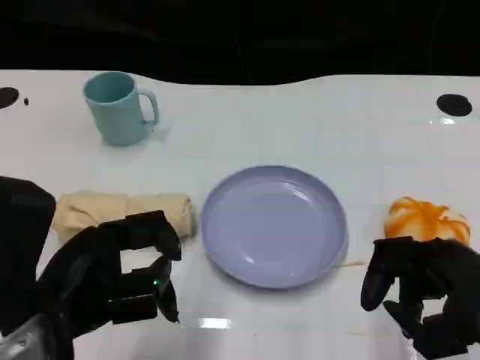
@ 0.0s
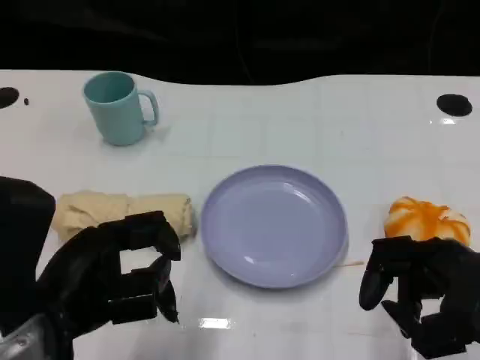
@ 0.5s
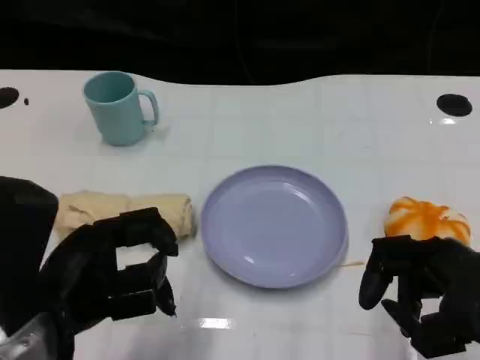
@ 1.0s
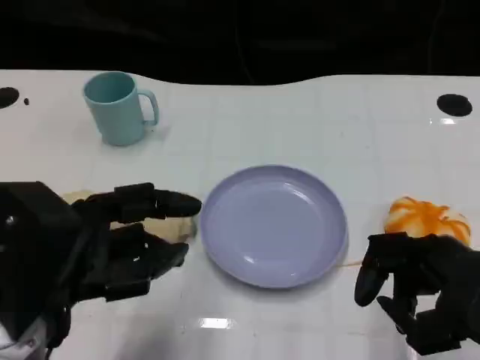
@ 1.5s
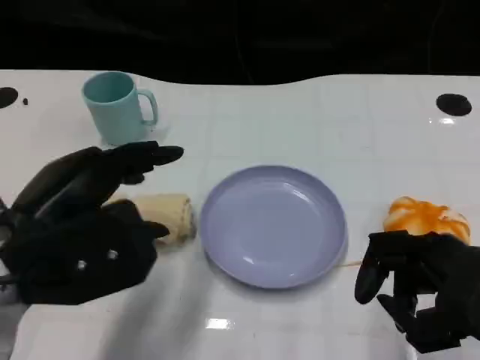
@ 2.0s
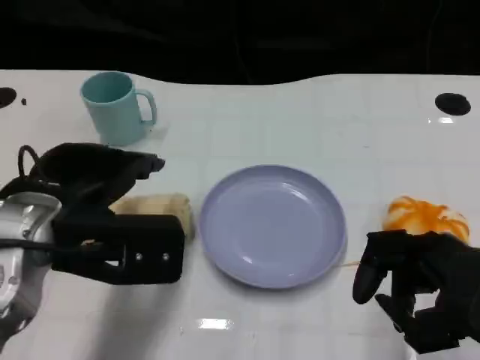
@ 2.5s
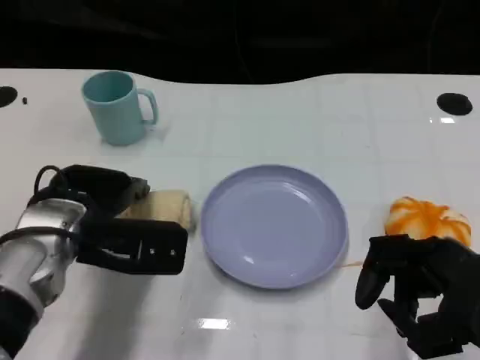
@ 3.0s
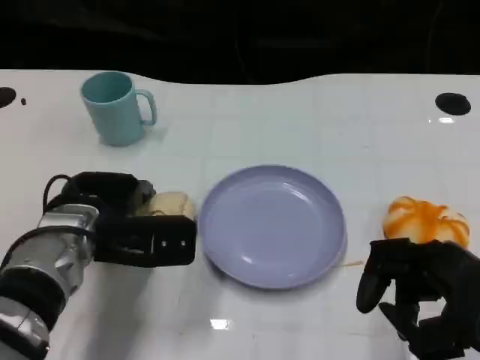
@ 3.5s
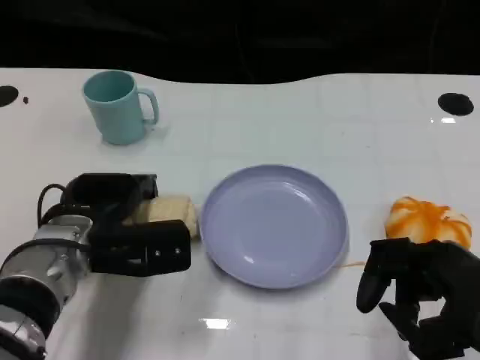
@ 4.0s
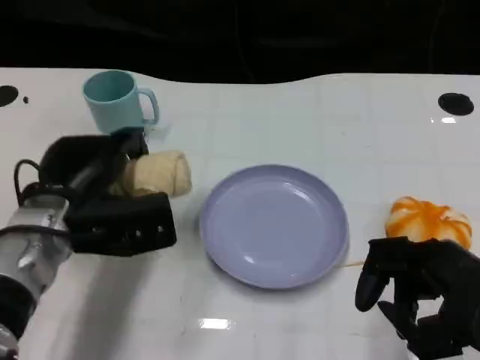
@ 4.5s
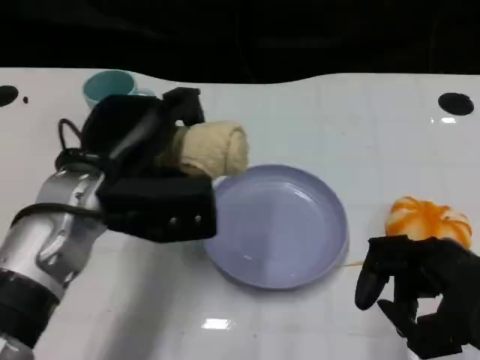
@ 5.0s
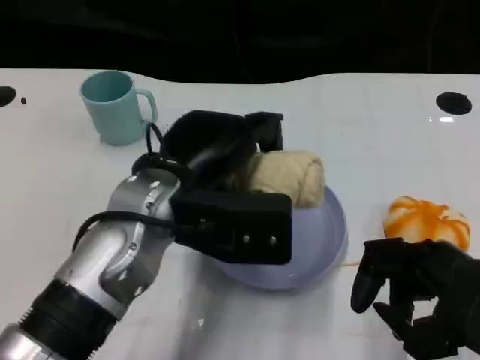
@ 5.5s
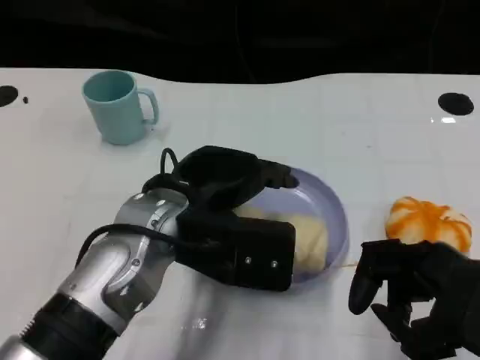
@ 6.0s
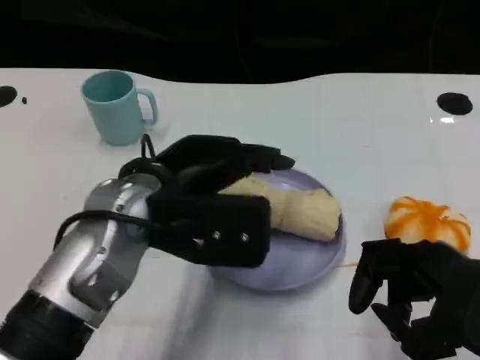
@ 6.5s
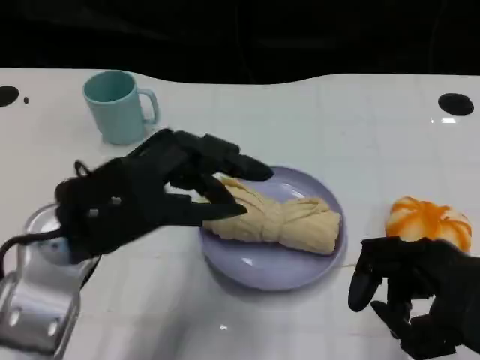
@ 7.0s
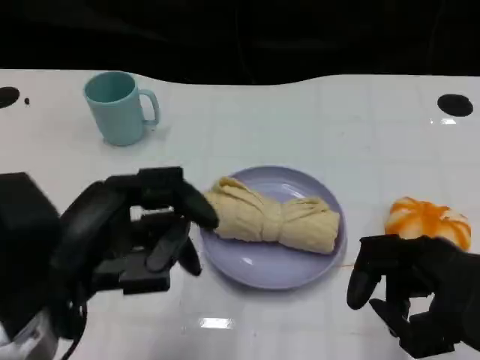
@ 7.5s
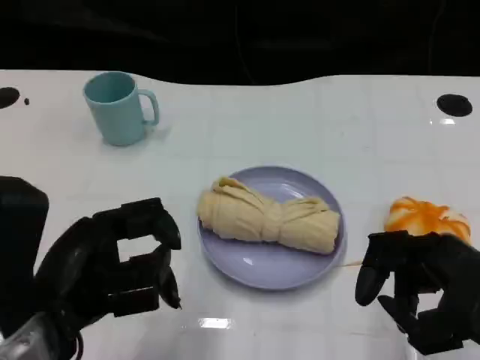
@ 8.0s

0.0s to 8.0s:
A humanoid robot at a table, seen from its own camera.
Task of the whole recording: Grasp the towel on the left side of the plate with the left hand and place it into the plate.
0.0s to 2.0s: The left hand moves some 5 cm.
2.0s to 4.0s: The left hand heads downward and forward, covering some 15 cm.
4.0s to 6.0s: The left hand goes approximately 10 cm to the right and upward.
6.0s to 8.0s: The left hand heads to the left and backward, covering approximately 15 cm.

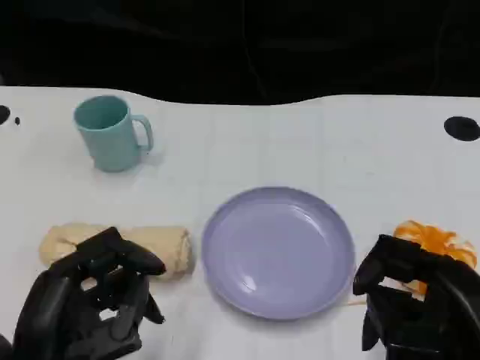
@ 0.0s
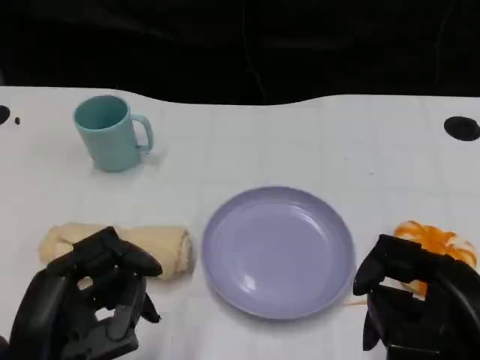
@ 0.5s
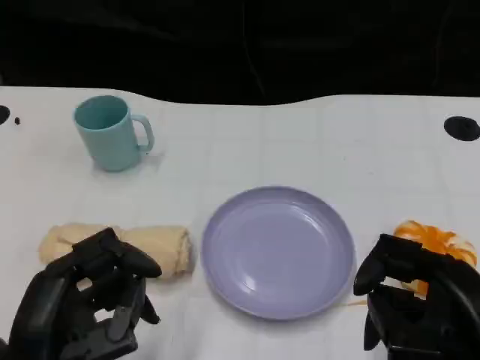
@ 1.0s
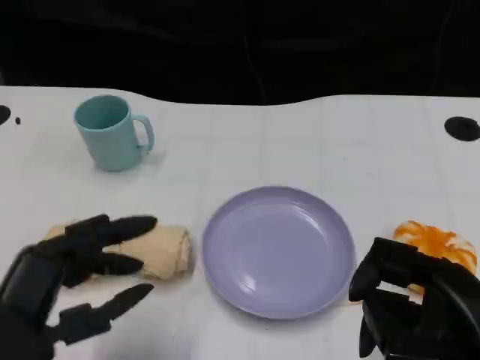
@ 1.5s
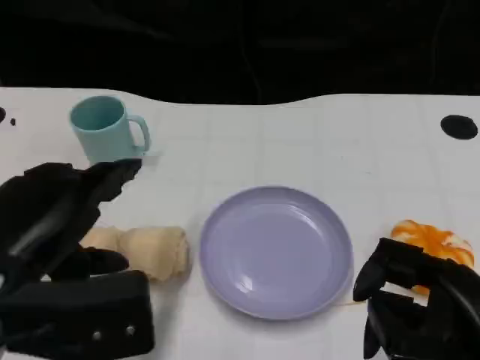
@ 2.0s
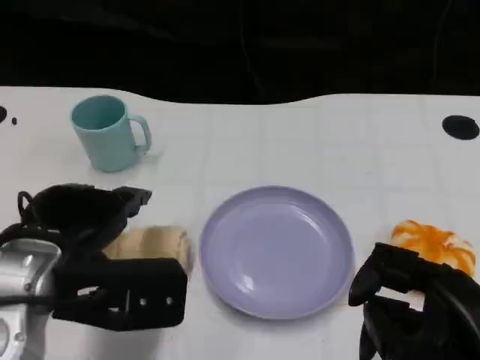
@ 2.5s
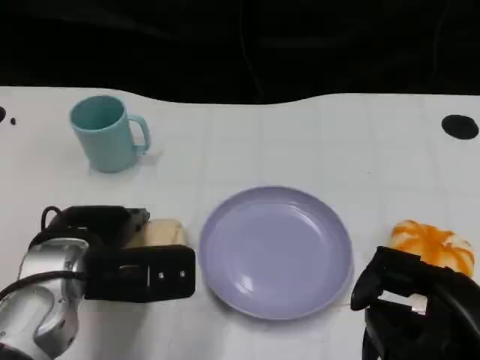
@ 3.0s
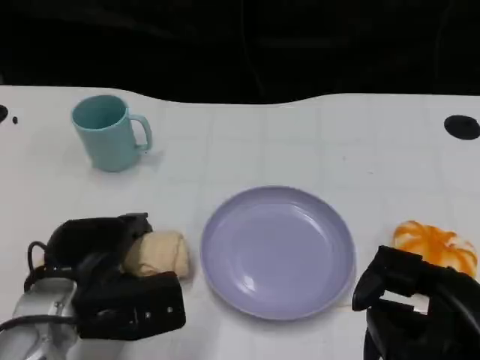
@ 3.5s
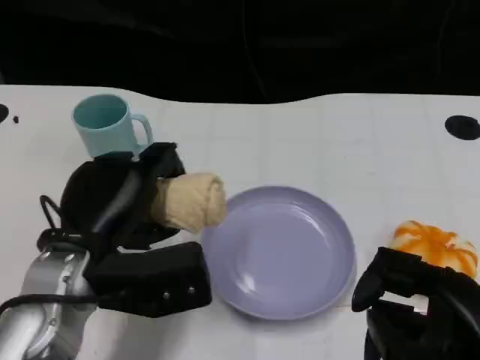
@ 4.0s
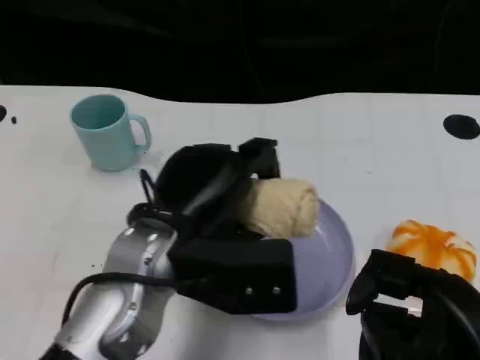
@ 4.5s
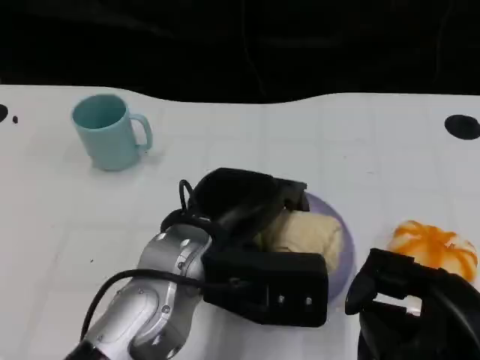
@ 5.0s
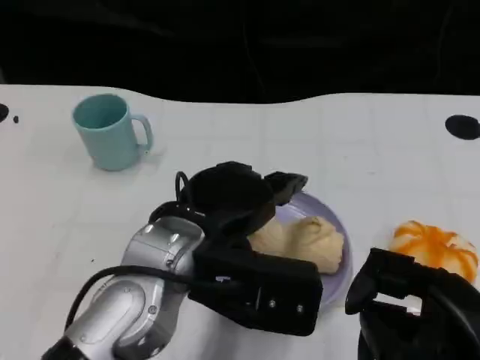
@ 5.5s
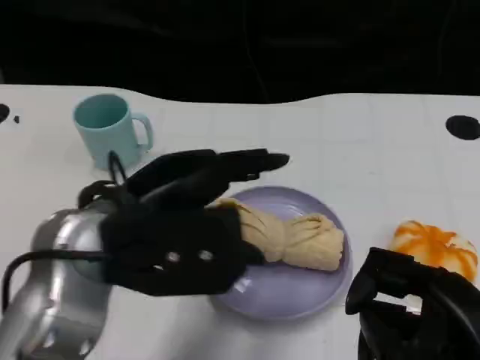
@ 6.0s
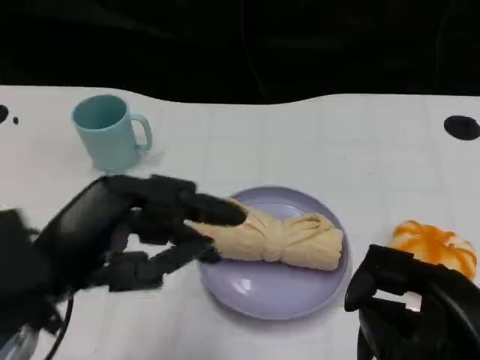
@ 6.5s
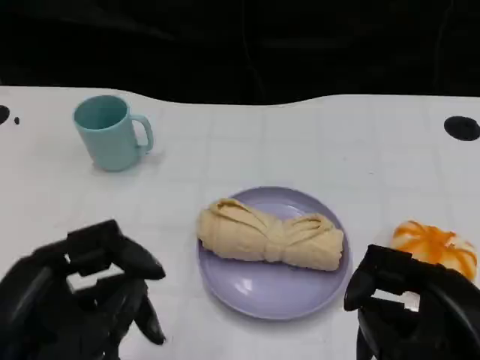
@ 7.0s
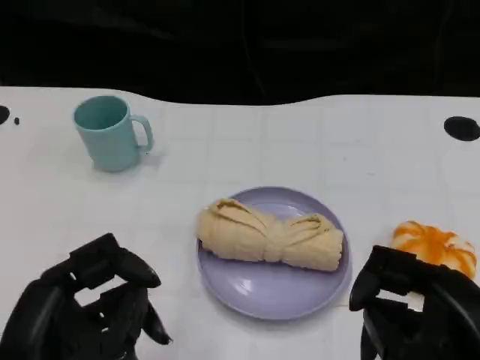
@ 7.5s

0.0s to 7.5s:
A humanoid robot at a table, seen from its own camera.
Task of the whole recording: Grasp the towel on the left side of the plate with the left hand and place it into the plate.
0.0s to 2.0s: The left hand heads upward and forward, covering some 10 cm.
2.0s to 4.0s: The left hand travels forward and downward by roughly 5 cm.
4.0s to 5.5s: The left hand goes roughly 10 cm to the right.
5.5s to 7.5s: The left hand moves backward and to the left, some 15 cm.

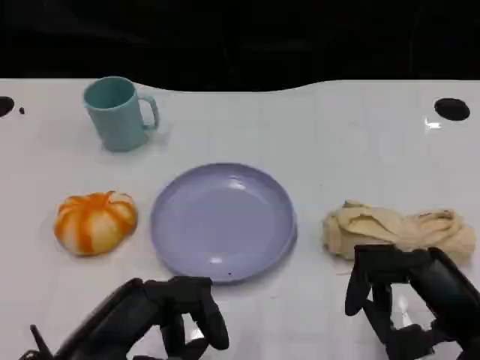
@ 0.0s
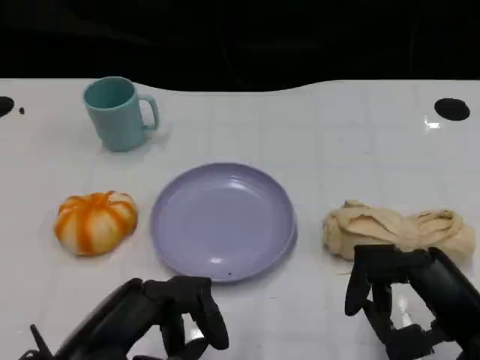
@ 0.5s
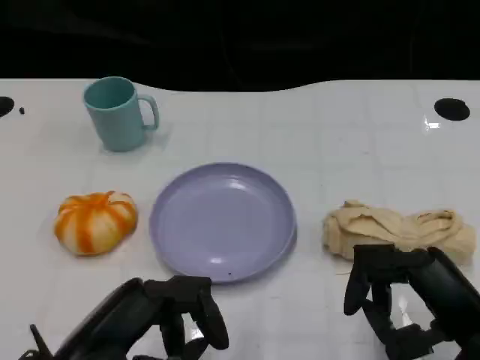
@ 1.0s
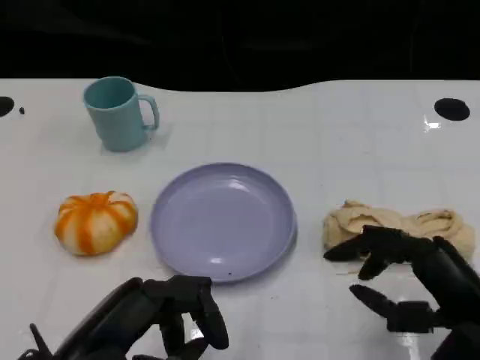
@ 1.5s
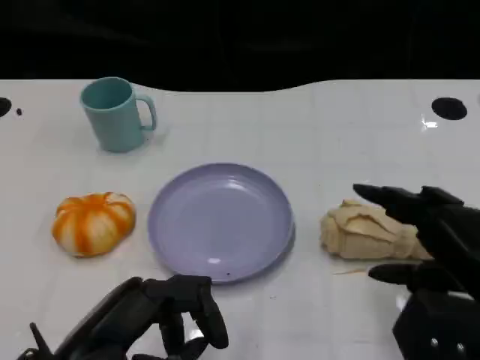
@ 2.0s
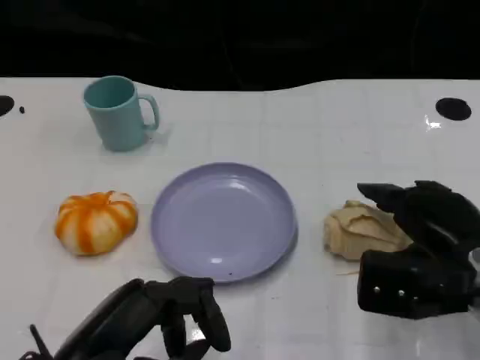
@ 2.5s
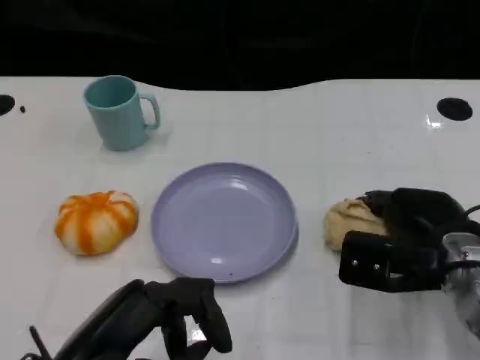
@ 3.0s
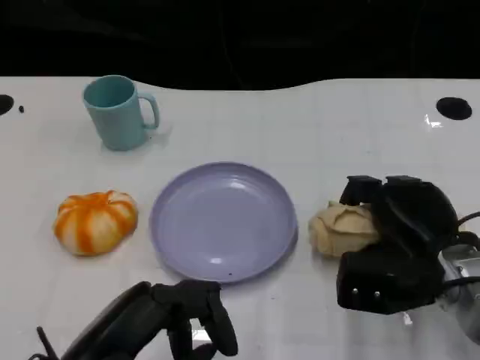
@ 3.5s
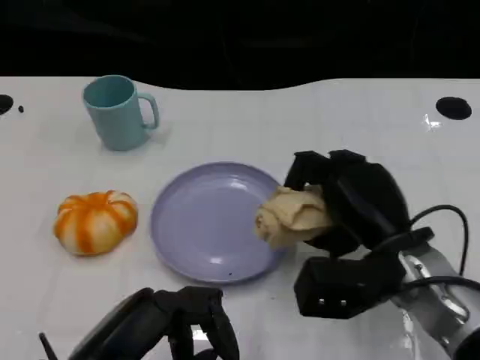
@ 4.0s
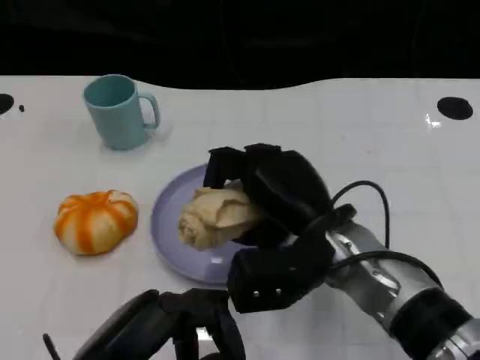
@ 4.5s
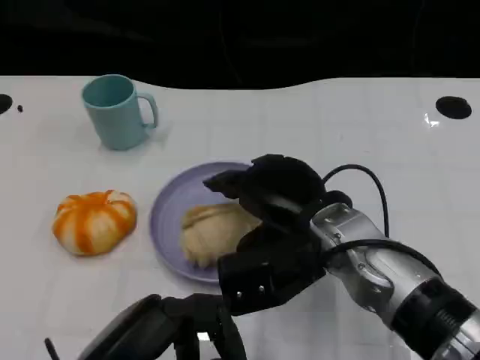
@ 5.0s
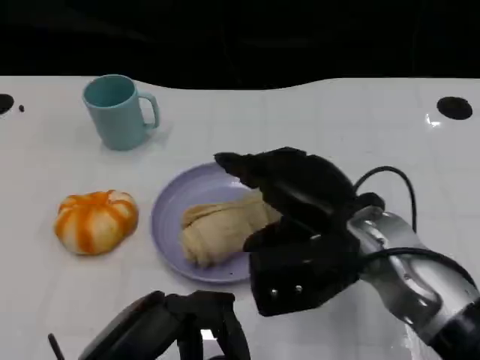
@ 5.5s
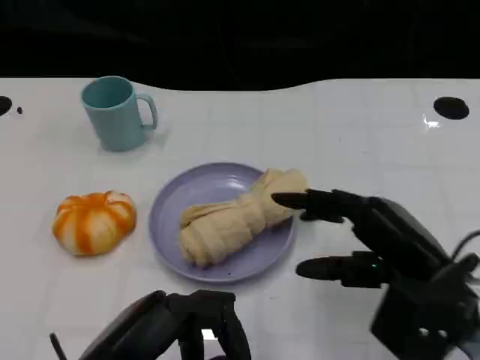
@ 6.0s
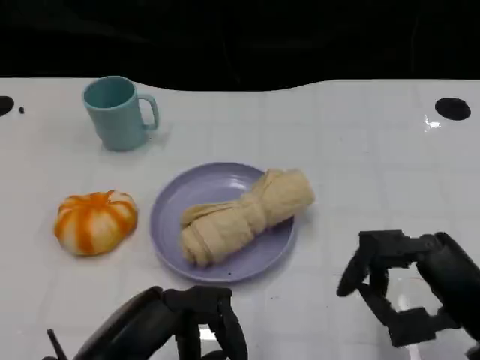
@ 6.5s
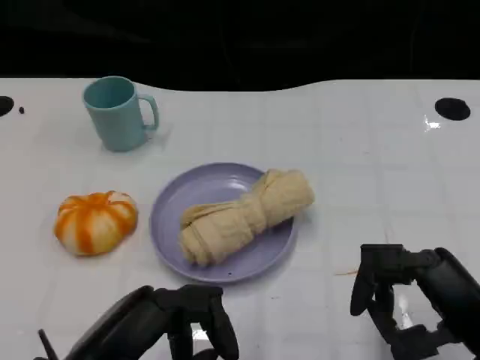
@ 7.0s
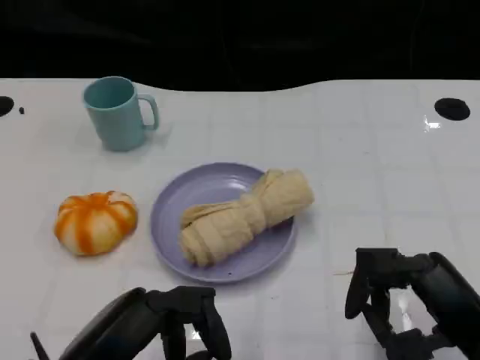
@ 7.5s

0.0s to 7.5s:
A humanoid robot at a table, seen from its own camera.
Task of the whole recording: Grasp the towel on the left side of the plate with the left hand and place it into the plate.
2.0s to 4.0s: The right hand is displaced to the left and forward by roughly 10 cm.
4.0s to 5.5s: The right hand shifts by about 5 cm.
5.5s to 7.5s: The right hand goes some 15 cm to the right and backward.

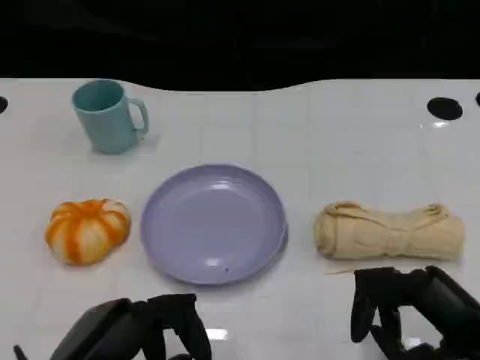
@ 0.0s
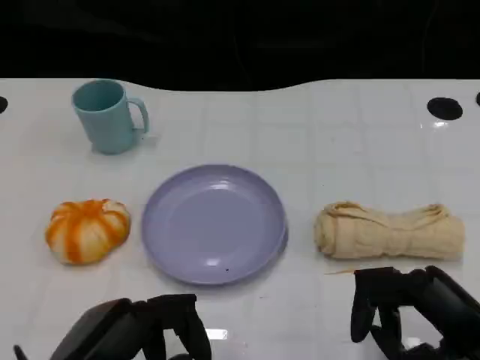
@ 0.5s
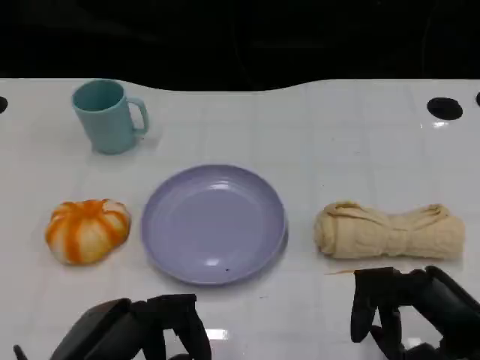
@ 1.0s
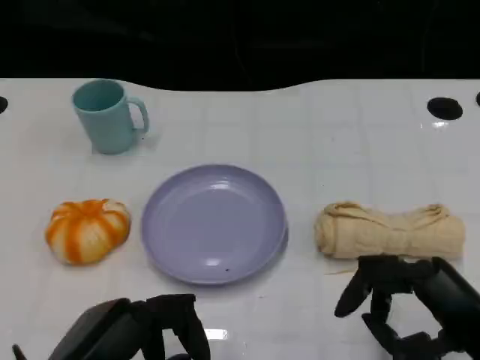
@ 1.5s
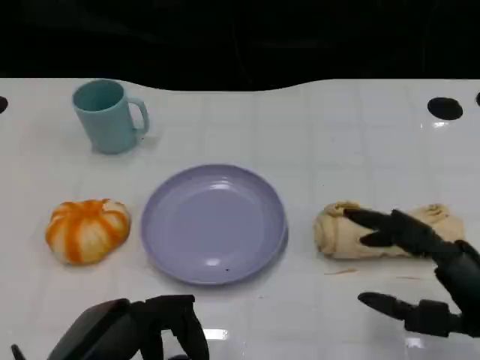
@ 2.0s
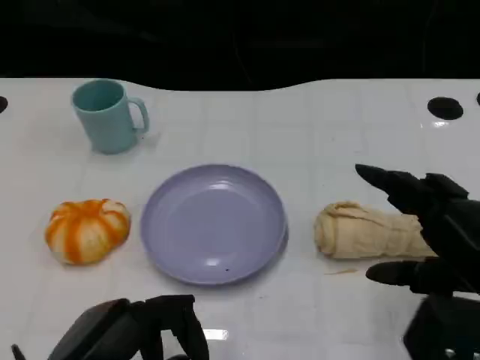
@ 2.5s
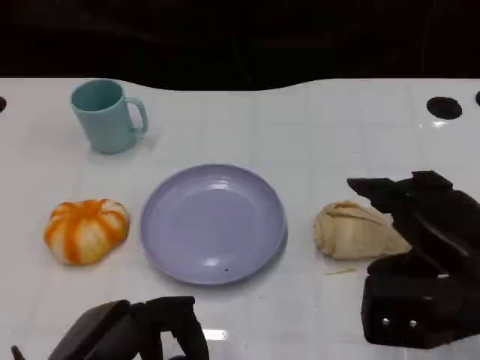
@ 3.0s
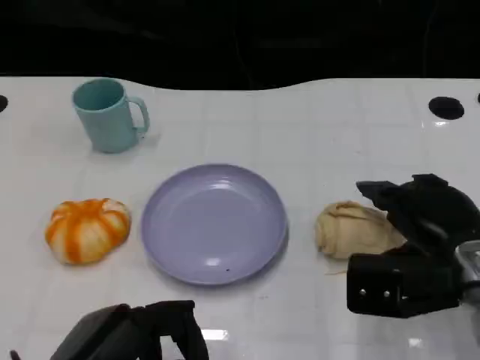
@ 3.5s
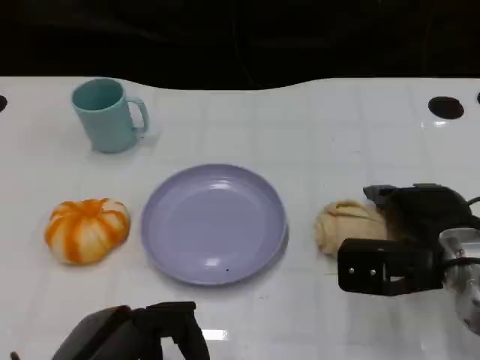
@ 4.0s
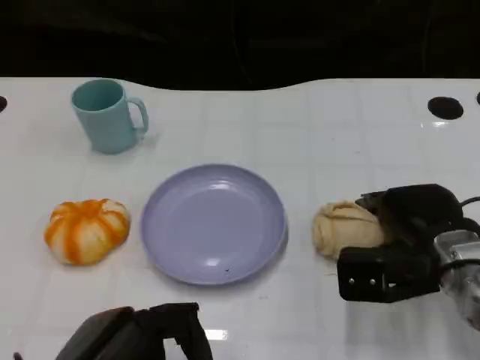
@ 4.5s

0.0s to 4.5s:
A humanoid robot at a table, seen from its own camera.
Task of the whole recording: Grasp the towel on the left side of the plate with the left hand and place it into the plate.
0.0s to 2.0s: The hands move only a little.
2.0s to 4.5s: The right hand travels forward by approximately 10 cm.
